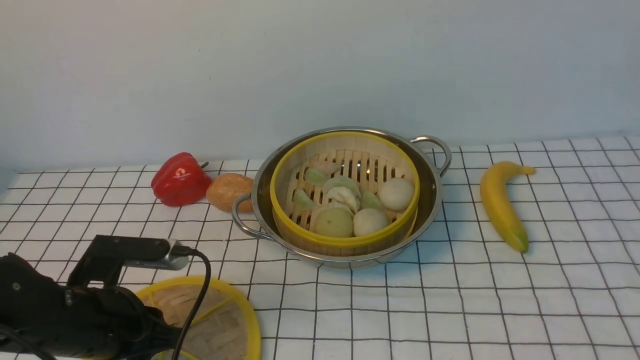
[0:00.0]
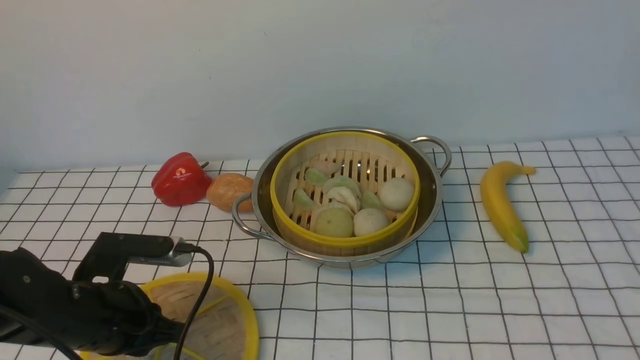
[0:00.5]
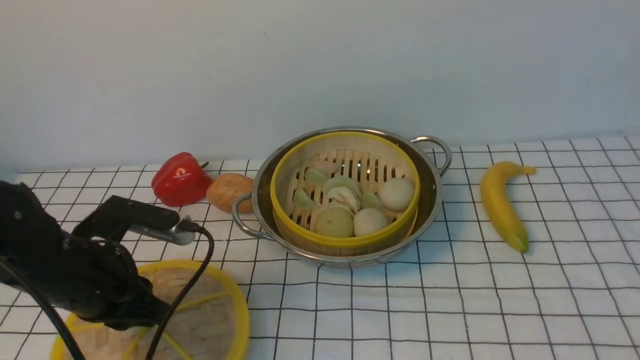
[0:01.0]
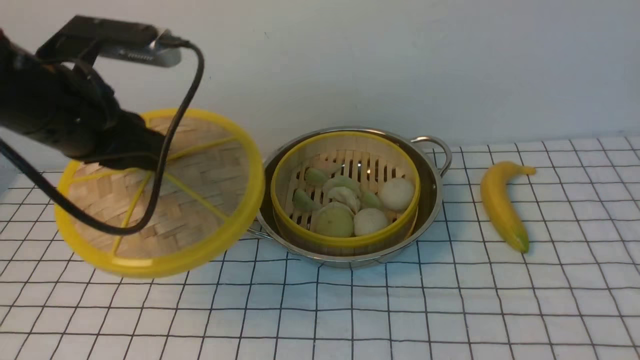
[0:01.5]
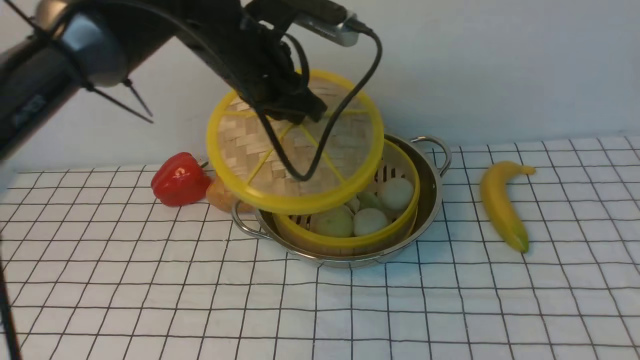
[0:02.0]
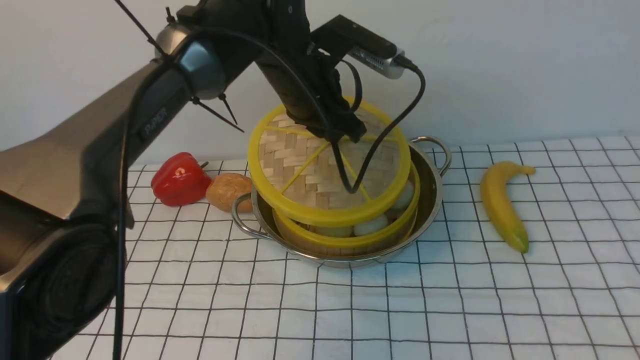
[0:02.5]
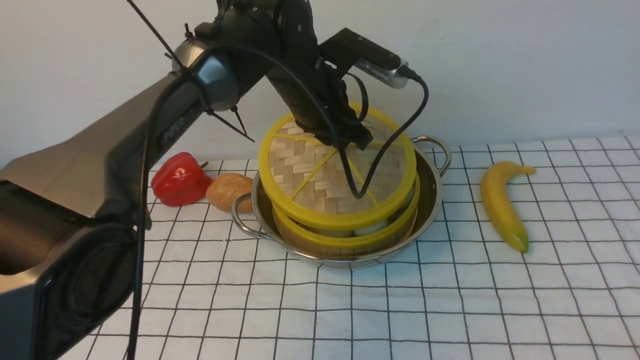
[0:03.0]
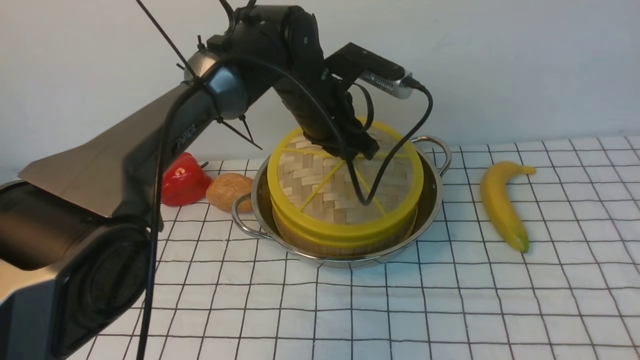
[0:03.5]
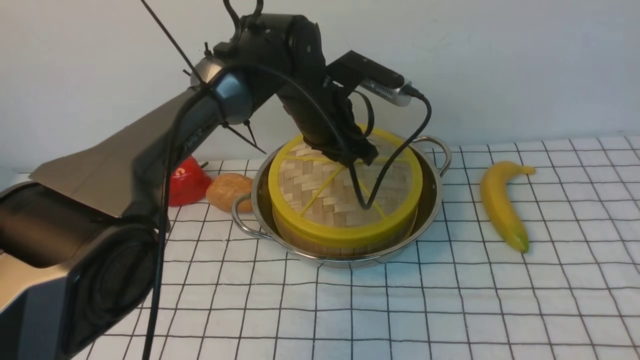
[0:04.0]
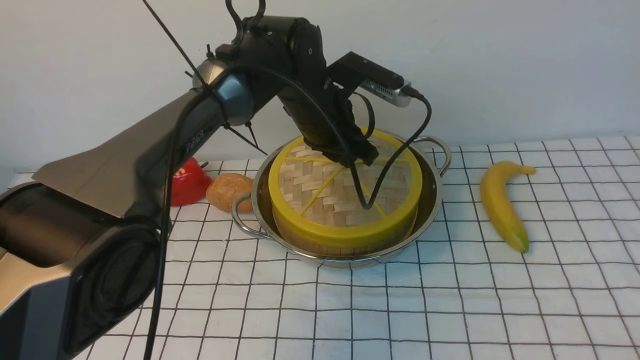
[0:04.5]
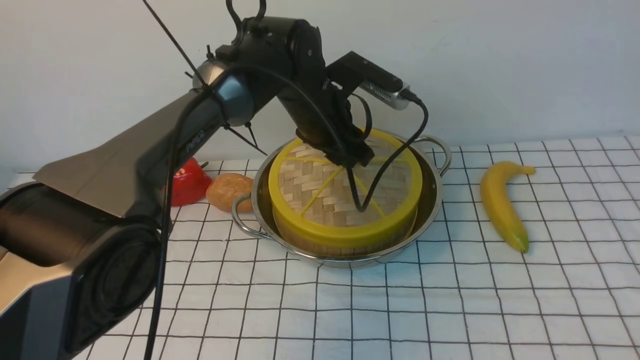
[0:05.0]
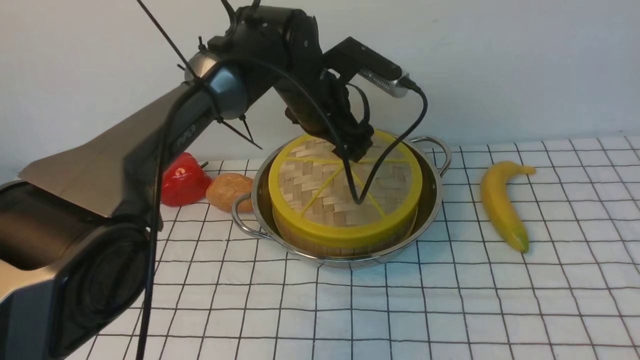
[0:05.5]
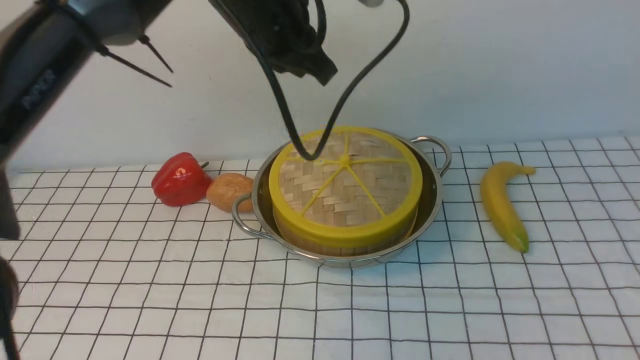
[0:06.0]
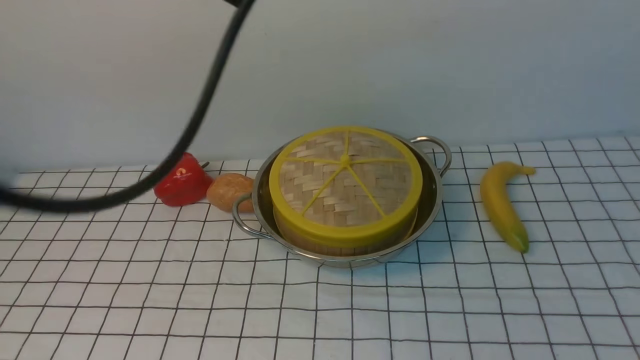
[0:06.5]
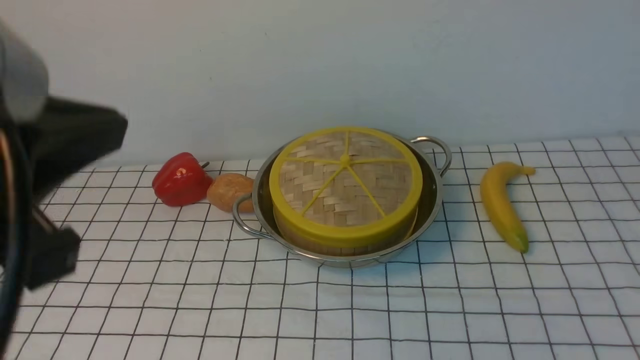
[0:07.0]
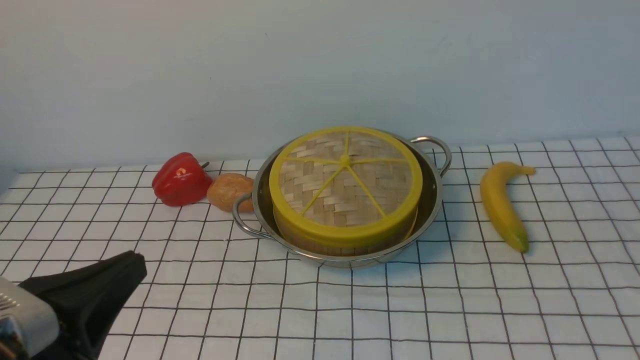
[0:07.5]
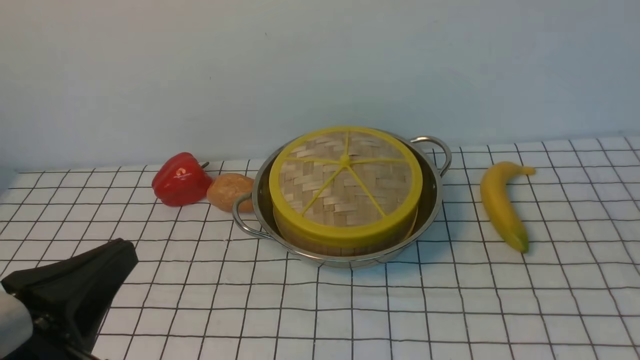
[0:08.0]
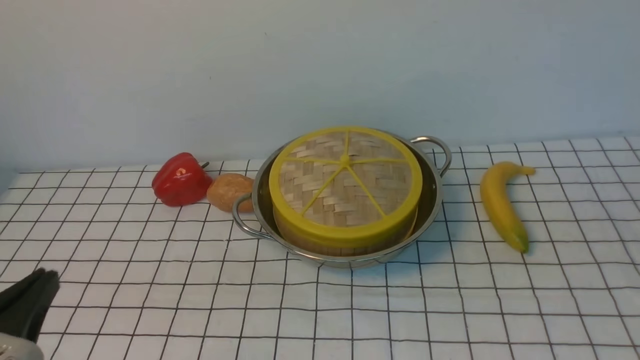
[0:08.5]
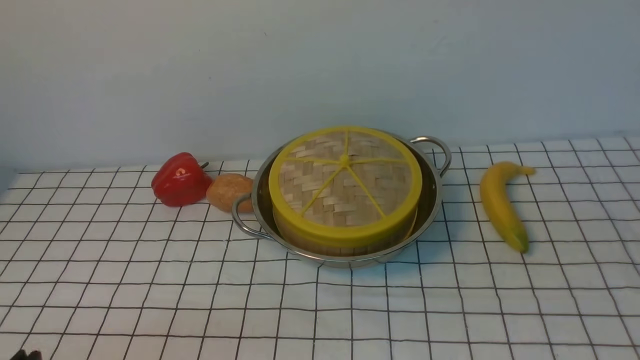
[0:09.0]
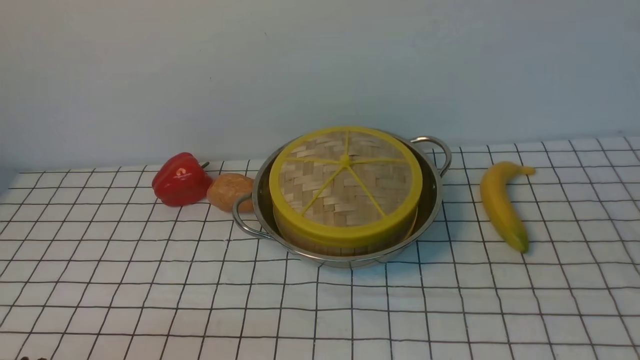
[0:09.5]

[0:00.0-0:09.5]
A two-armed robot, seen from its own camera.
Task of the whole recording: place the steamer in the pot on the white tablecloth, and put the lid on the steamer.
Step, 0:01.5 to 0:05.5: use the left arm to place the steamer lid on the steamer.
0:00.0 to 0:02.0: The left gripper goes about 30 cm forward, upward and to the right.
0:02.0 to 0:04.0: The left gripper is displaced downward, to the right and forward by approximately 10 cm.
0:04.0 to 0:05.5: The left gripper opens.
0:05.5 to 0:07.5: The left gripper moves backward and to the left, some 40 cm, and closes up. The right gripper shifts some 20 cm downward.
0:07.5 to 0:09.5: The left gripper moves downward and to the left, about 15 cm.

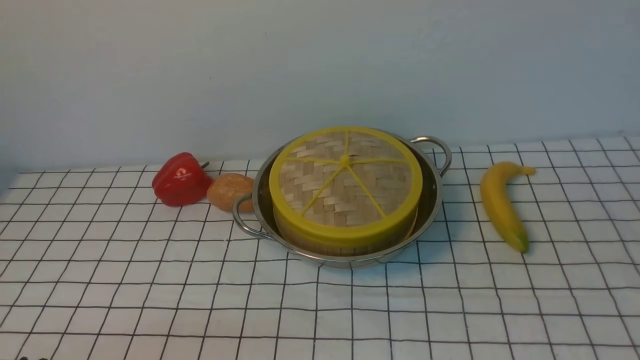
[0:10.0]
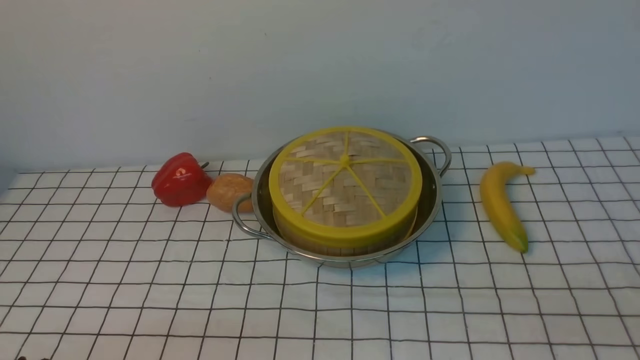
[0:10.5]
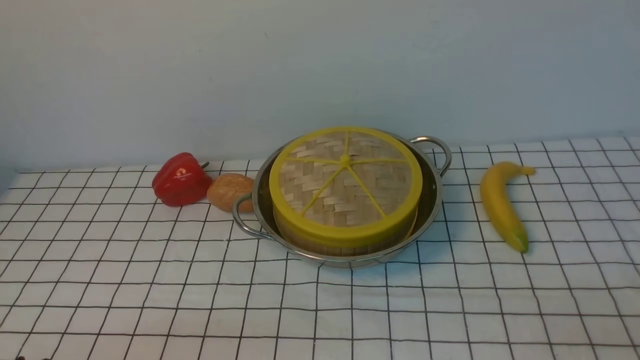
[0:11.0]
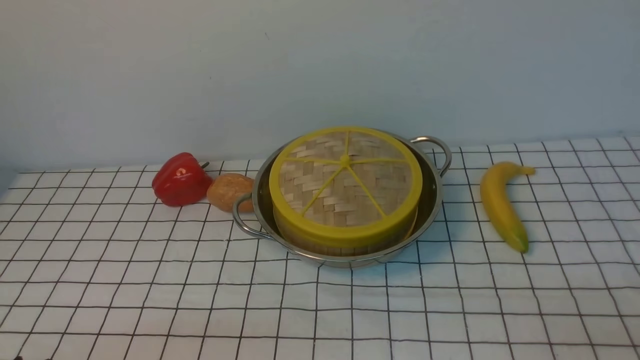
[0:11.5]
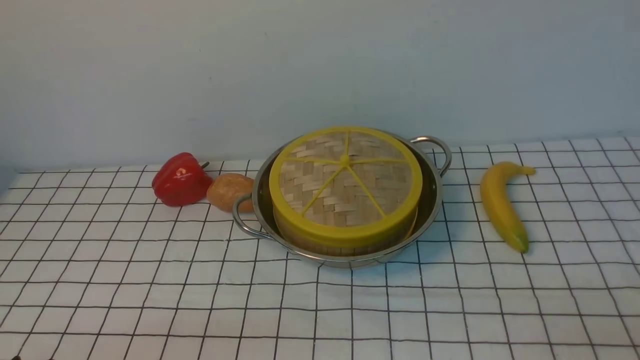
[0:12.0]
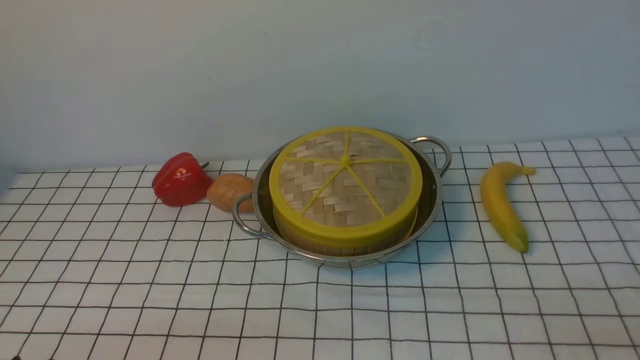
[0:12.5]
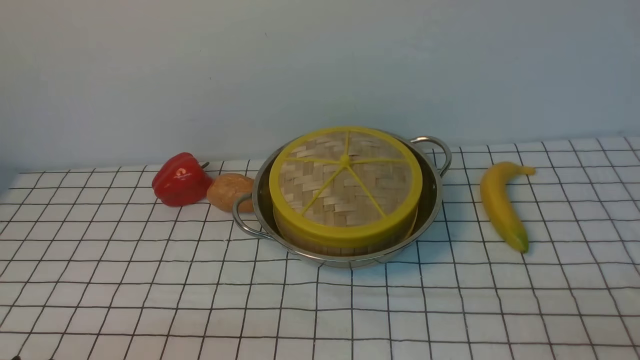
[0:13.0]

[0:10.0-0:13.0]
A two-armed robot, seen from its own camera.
Task of the whole recording: place the steamer in the pot on the white tablecloth, and put the lid on the steamer.
0:11.5 to 0:13.0: The two grippers keep their place.
